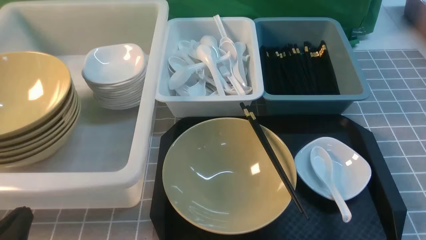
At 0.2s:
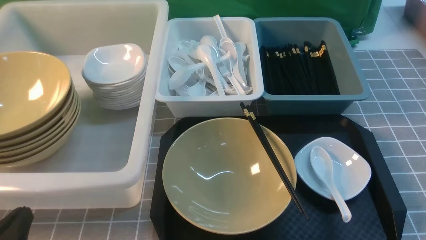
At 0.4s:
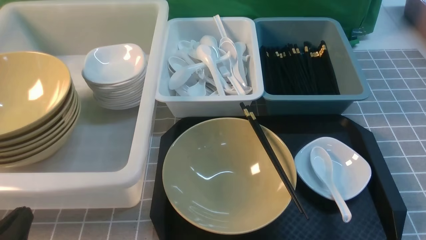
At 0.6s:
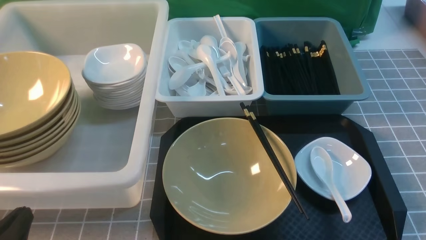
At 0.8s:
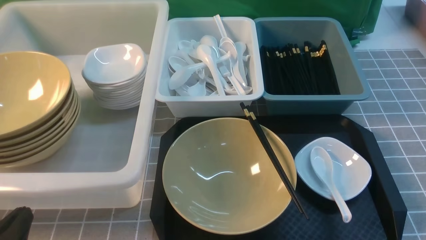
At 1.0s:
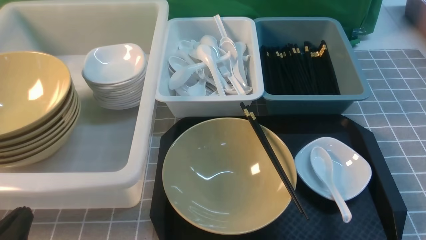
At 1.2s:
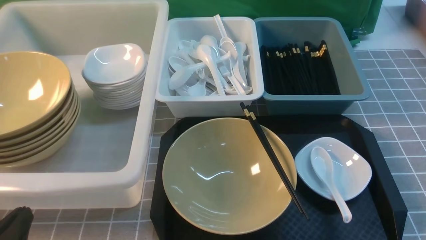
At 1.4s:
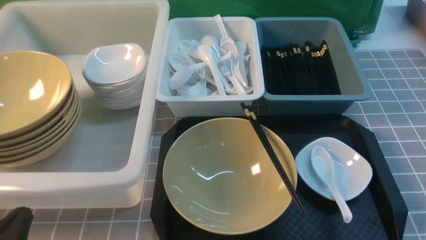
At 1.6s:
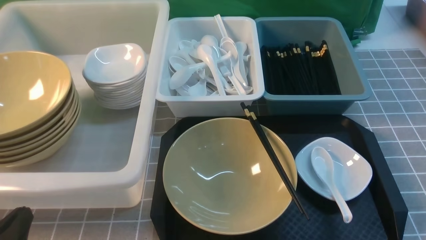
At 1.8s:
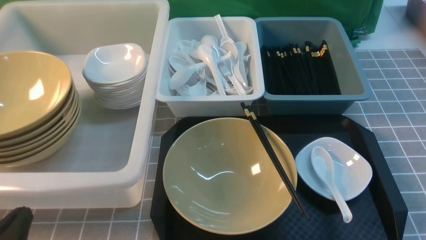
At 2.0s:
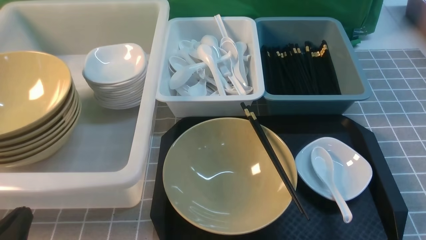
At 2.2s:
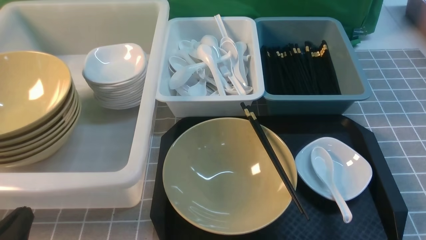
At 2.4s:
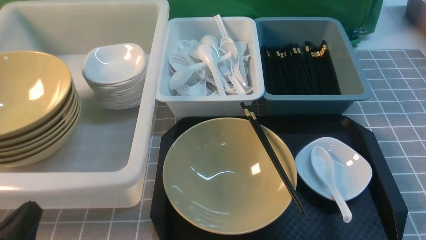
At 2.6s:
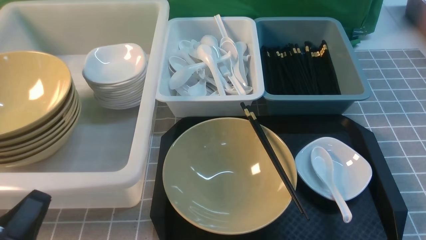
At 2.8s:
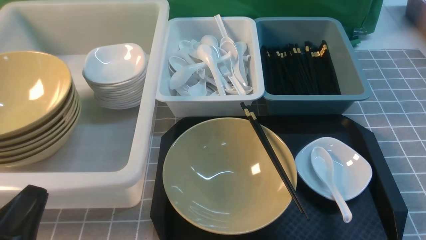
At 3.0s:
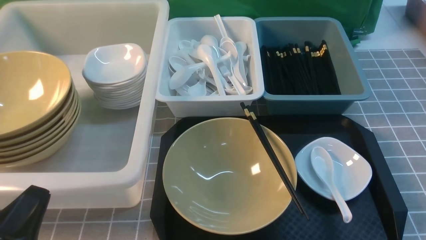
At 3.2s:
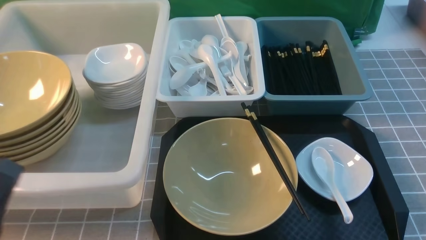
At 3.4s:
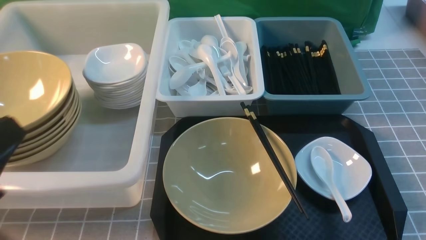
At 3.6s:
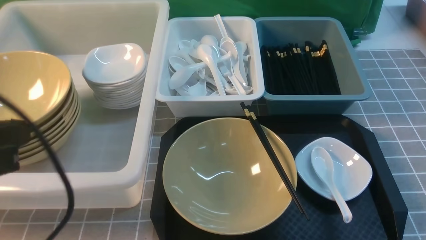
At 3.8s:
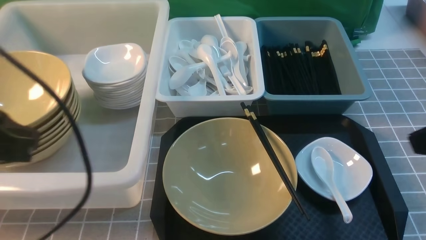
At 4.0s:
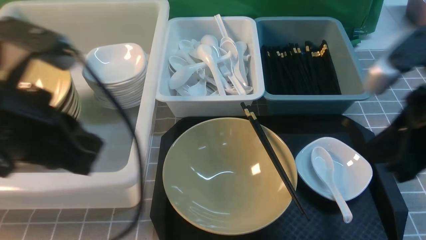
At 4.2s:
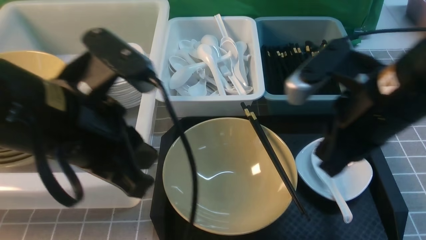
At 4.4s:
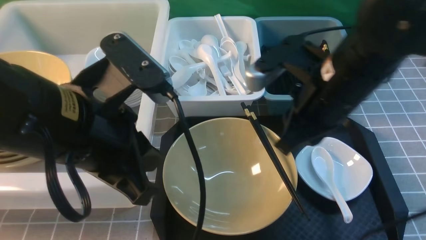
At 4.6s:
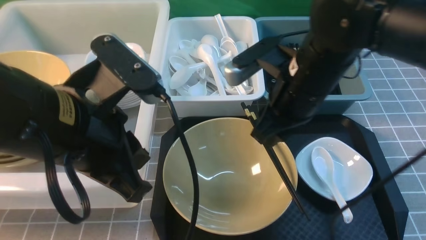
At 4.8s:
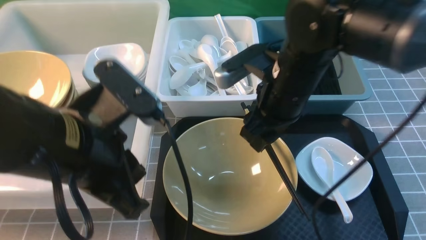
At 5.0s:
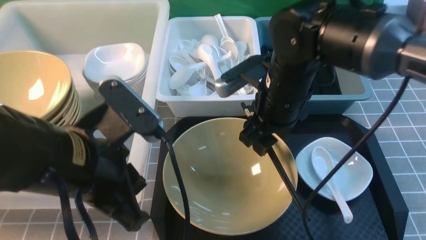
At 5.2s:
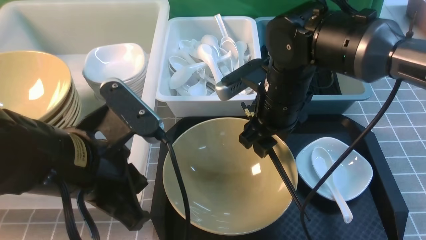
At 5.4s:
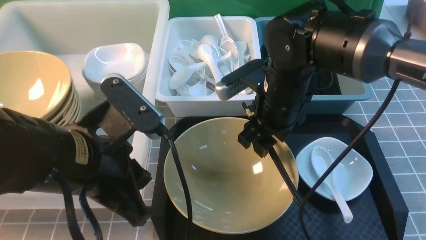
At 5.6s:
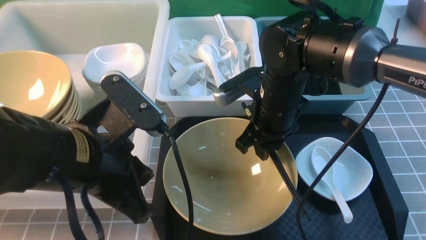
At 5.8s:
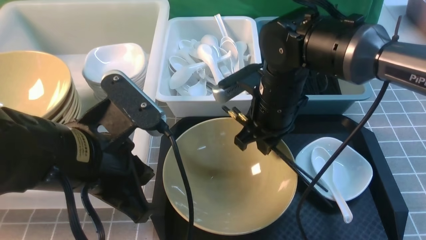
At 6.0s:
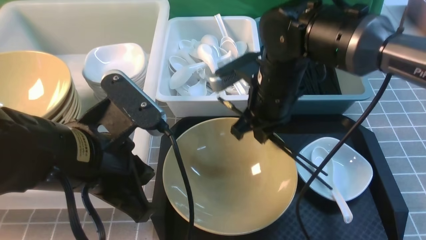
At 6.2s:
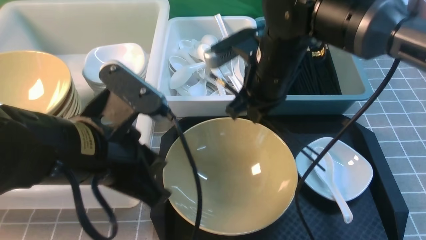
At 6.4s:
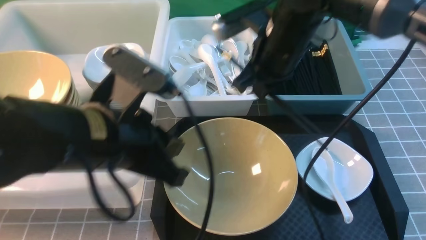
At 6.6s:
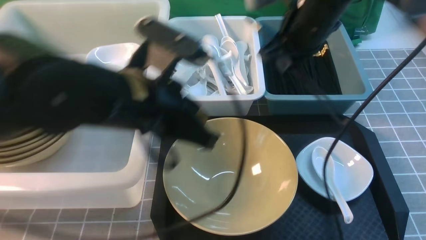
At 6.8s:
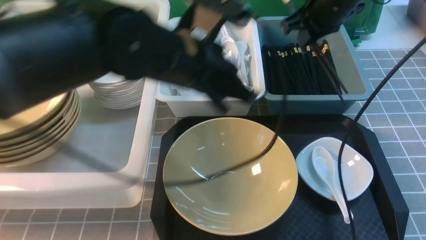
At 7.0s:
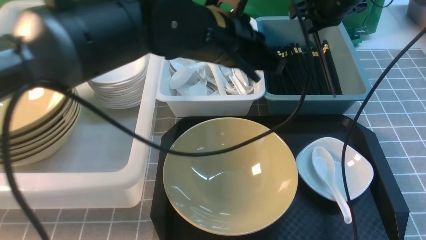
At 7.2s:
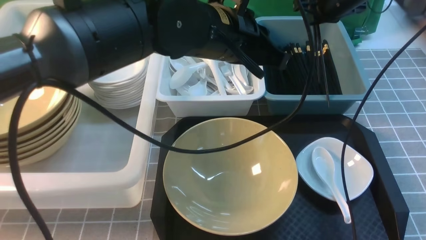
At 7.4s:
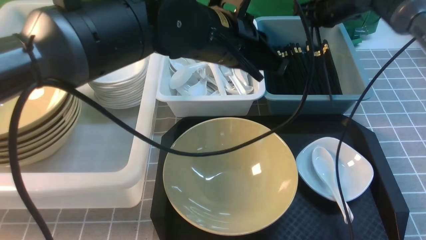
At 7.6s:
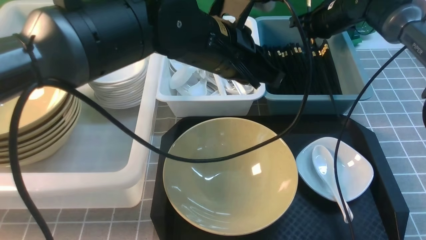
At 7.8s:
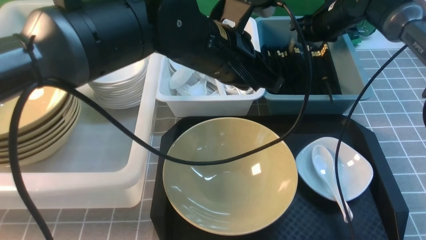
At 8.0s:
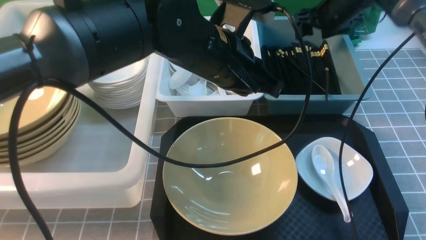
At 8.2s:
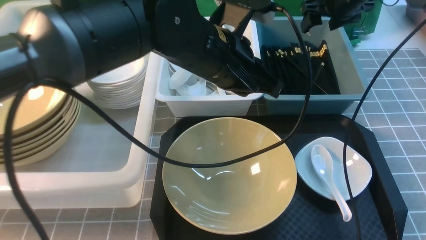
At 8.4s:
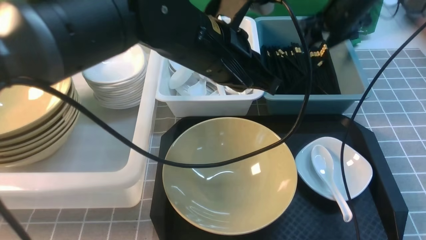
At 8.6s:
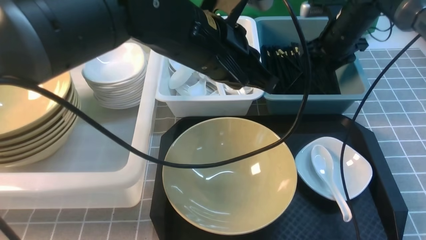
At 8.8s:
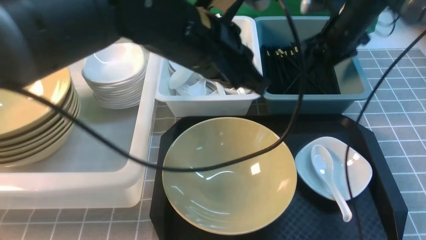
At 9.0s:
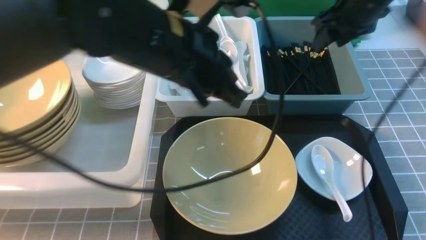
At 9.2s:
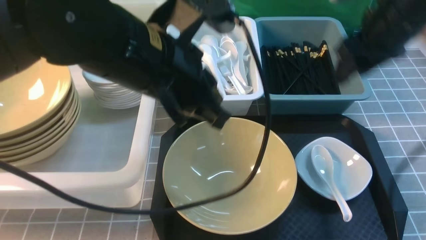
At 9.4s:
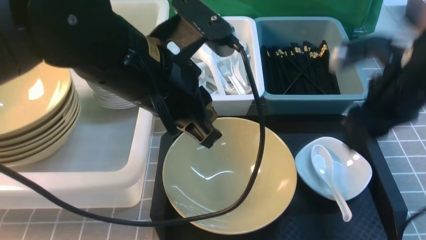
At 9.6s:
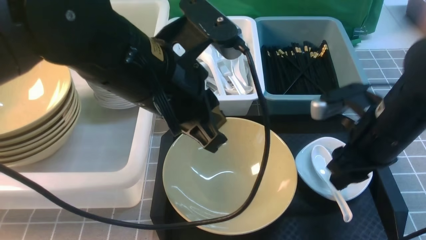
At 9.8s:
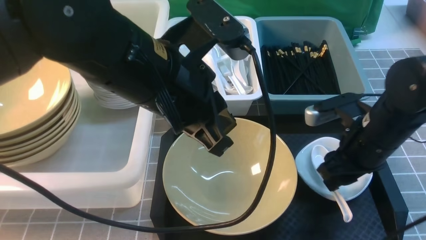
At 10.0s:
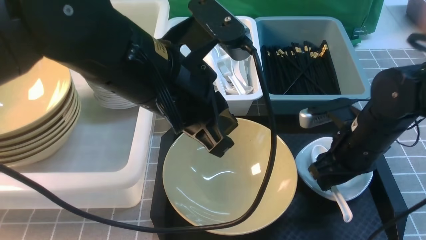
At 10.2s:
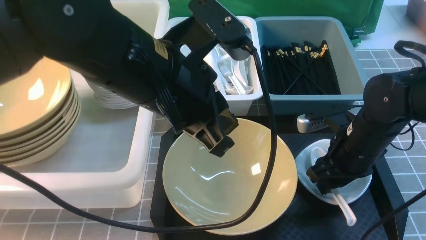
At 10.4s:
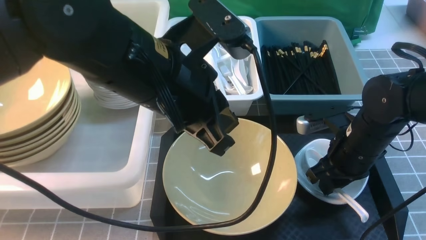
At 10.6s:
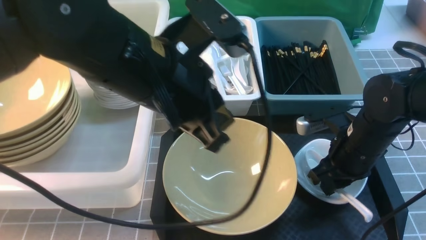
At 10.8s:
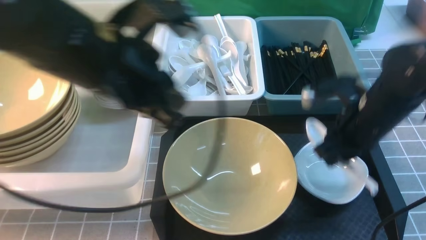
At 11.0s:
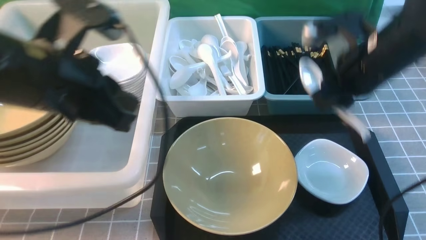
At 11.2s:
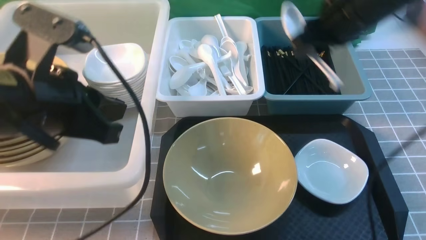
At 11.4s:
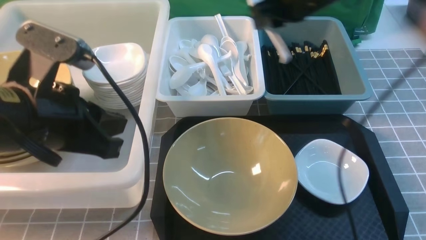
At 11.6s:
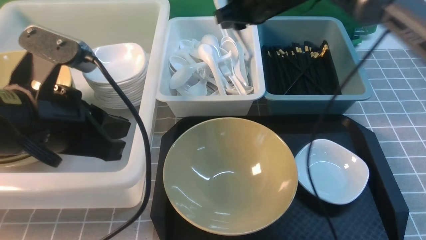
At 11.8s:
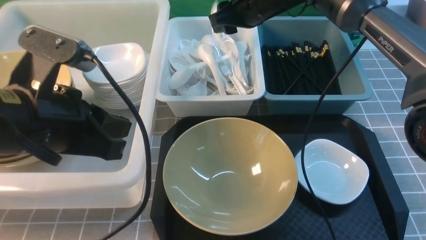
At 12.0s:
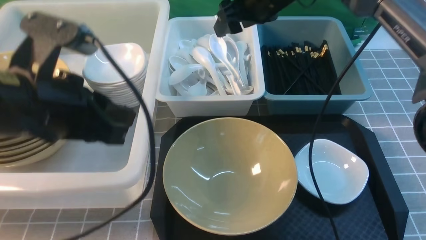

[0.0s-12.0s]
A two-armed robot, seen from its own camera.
Task of the whole recording: on grey table put chopsticks spoon bowls plates into blue grey white boxes.
Step, 0.0s to 6.0s: use the right arm to grab the chopsticks.
Step, 6.2s to 8.0s: use the right arm to put the chopsticks into the small storage box on the right.
Step, 8.2s to 10.6s: use the right arm to grab the soup spoon in the middle.
Step, 10.8s to 12.0s: use the right arm to put the soup spoon into the small storage box in the middle.
0.0s to 1.6s: Both grippers stay about where they are.
3.0s to 4.4s: The right gripper moves forward, to the left and upward, approximately 30 cm; the left gripper travels upward, forward and to the right by about 20 cm.
4.4s to 6.0s: The right gripper goes approximately 10 cm forward and downward, and opens, then closes again.
6.0s to 7.6s: The two grippers go about 25 cm forward and to the right.
7.6s to 9.0s: The left gripper goes approximately 5 cm backward. Meanwhile the right gripper travels backward and upward by approximately 15 cm, and opens up.
9.0s to 10.4s: The right gripper is displaced downward and backward by about 20 cm, and closes its fingers.
10.4s to 12.0s: The left gripper travels to the left by about 10 cm. Meanwhile the right gripper shifts some 25 cm forward, upward and to the left, and opens its fingers.

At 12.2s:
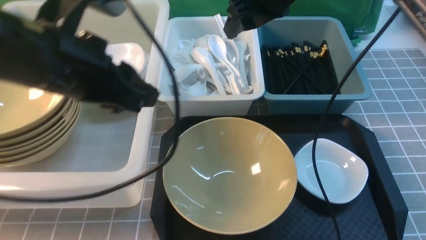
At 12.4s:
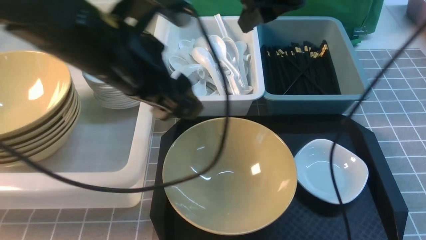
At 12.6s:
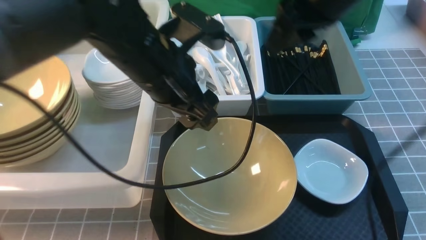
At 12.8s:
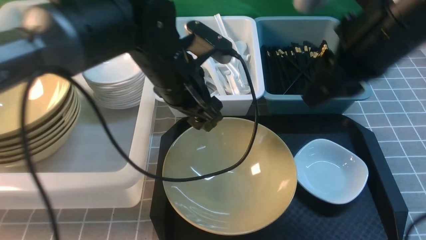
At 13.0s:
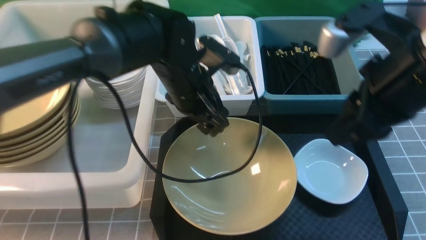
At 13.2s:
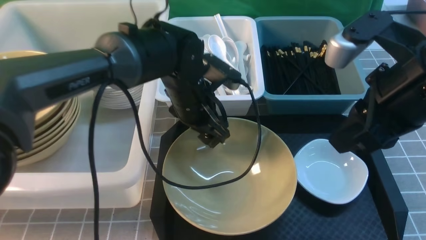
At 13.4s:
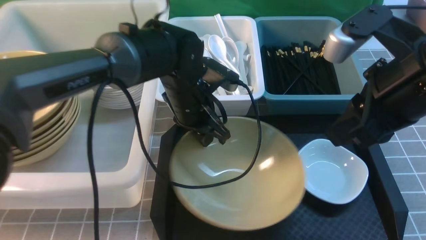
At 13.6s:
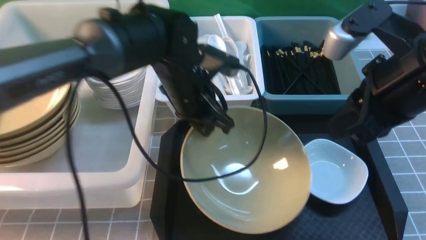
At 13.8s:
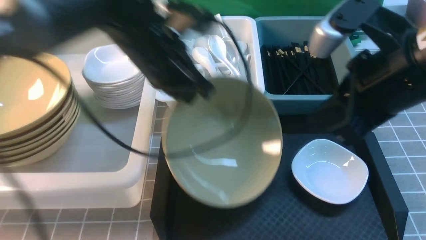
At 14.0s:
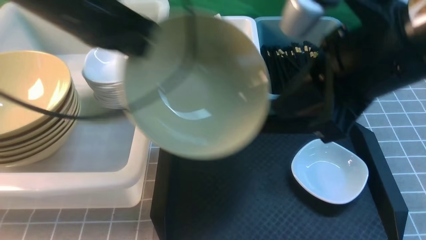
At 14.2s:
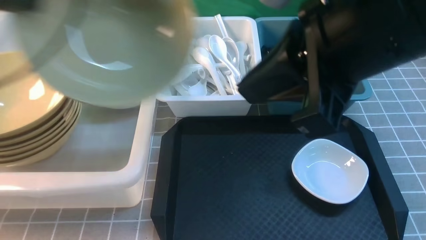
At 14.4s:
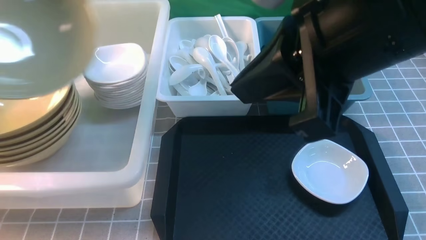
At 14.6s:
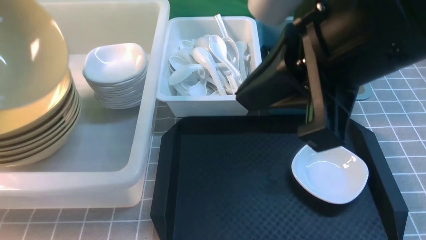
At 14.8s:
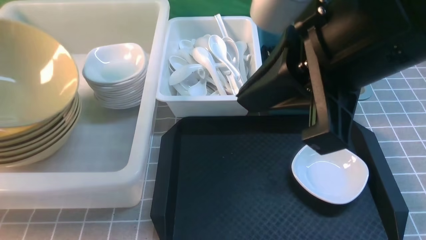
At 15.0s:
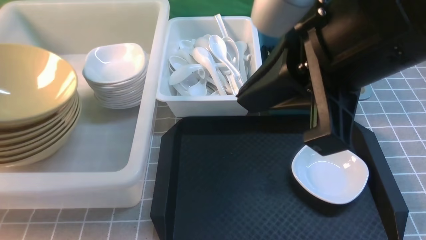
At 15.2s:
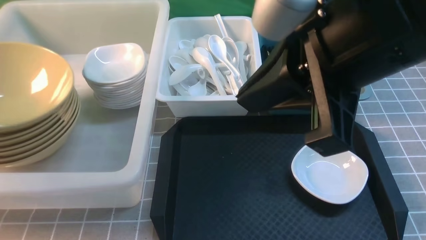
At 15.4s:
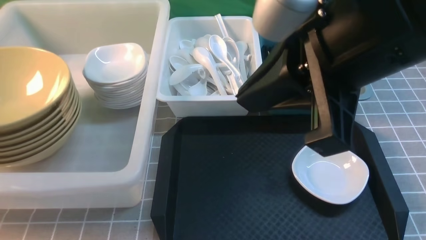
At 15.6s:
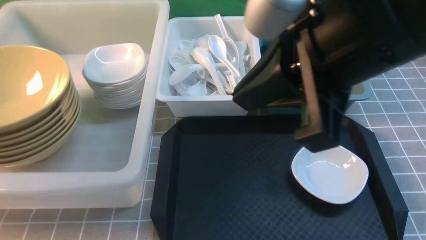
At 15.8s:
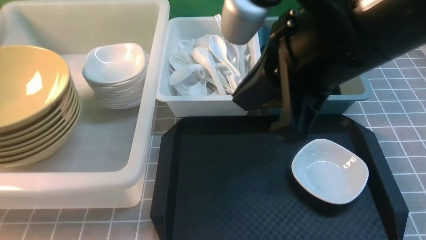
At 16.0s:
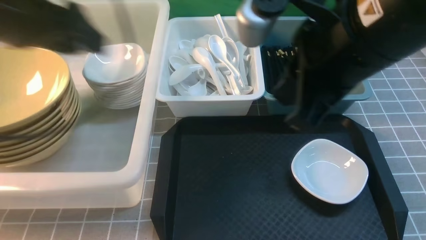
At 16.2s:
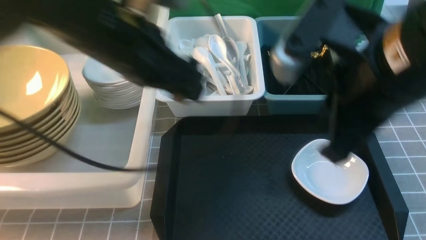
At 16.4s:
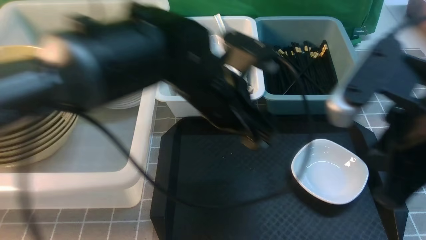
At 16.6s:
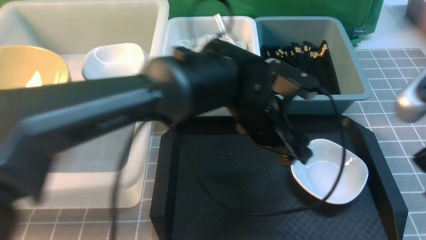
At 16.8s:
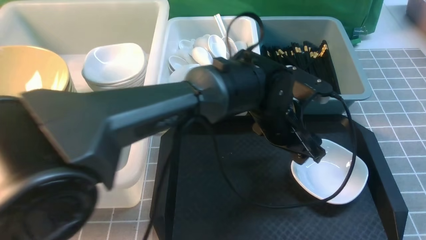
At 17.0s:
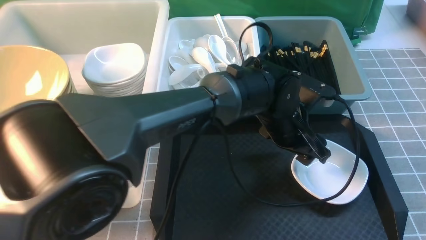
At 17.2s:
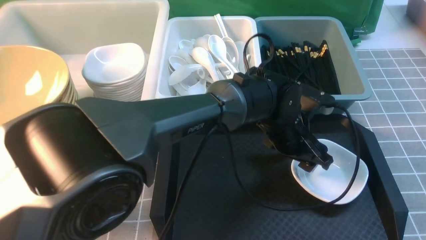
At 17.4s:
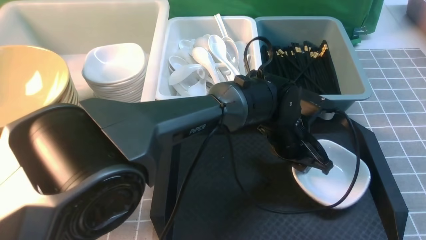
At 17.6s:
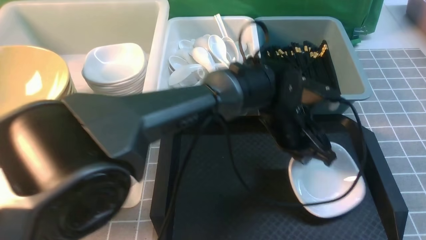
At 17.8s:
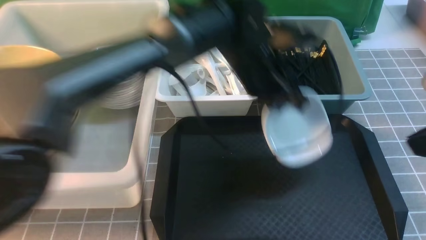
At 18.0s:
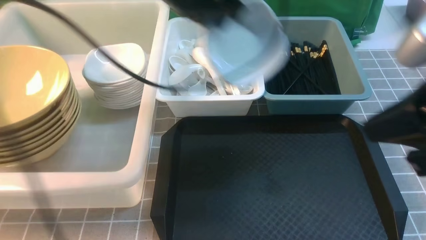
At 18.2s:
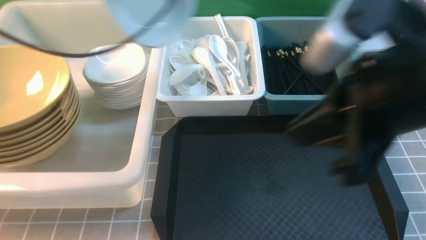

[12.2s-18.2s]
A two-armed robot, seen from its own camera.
Task of the whole recording: on grey table put chopsticks spoon bowls plates into blue grey white boxes.
Step, 12.2s to 13.8s: use the left arm to grab the yellow noodle bowl on the left.
Step, 14.0s to 15.4s: use the left arm to put the noodle bowl into the large storage box on the left.
Step, 15.6s to 17.6s: use the left arm to grab the plate.
12.2s to 13.8s: The left gripper travels forward by some 10 cm, reaches roughly 15 cm downward, then returns, and closes up. The right gripper shifts approximately 20 cm backward, and closes its fingers.
13.8s to 15.2s: The right gripper moves upward and to the left, roughly 10 cm; the left gripper travels to the left by some 30 cm, and opens.
15.2s to 16.6s: The right gripper shifts about 15 cm to the right and downward. The left gripper shifts some 50 cm to the right.
16.6s to 18.2s: The right gripper goes roughly 10 cm to the left; the left gripper shifts about 30 cm to the left and upward, and closes its fingers.
